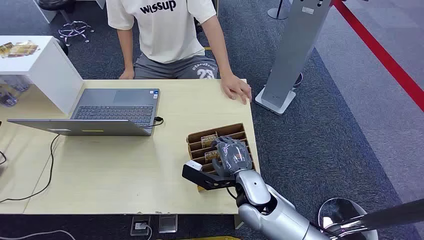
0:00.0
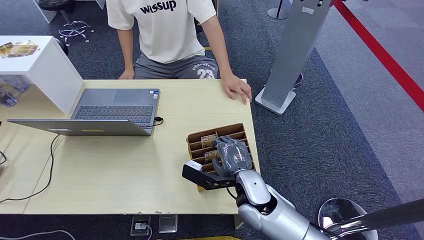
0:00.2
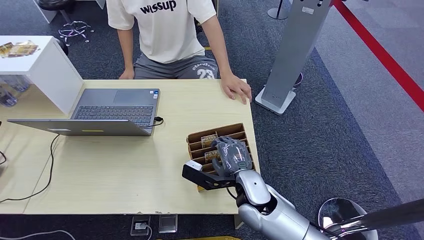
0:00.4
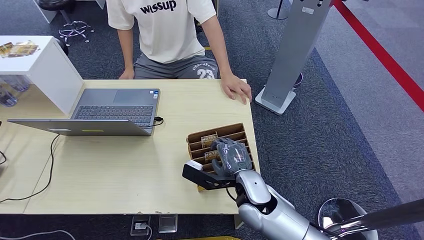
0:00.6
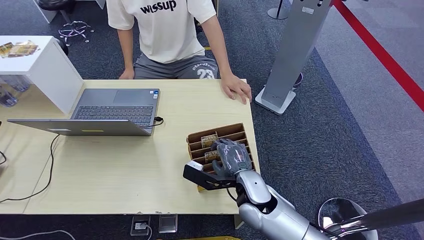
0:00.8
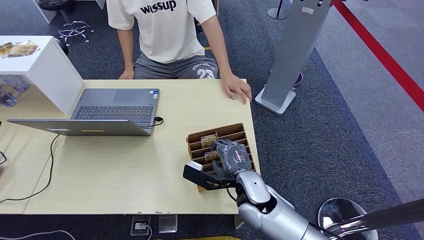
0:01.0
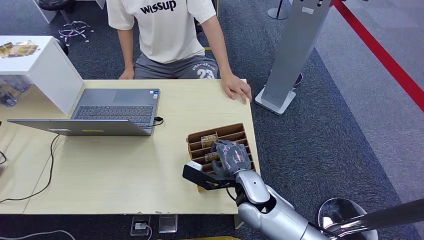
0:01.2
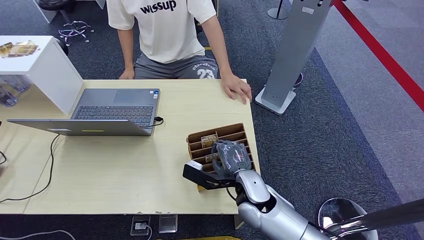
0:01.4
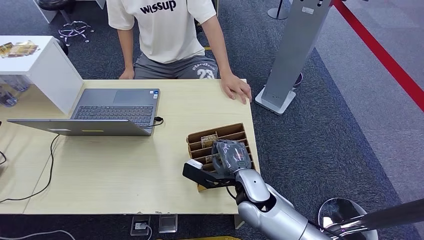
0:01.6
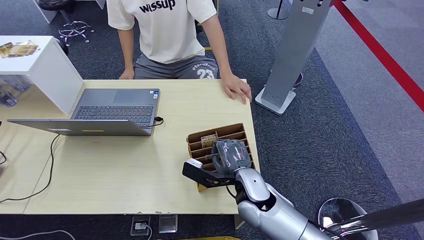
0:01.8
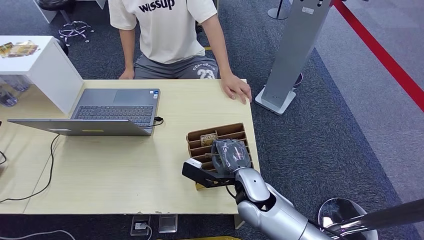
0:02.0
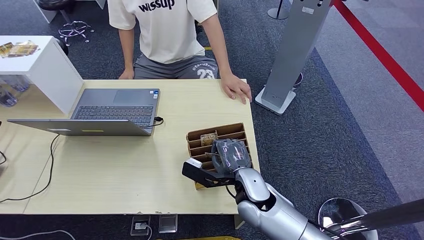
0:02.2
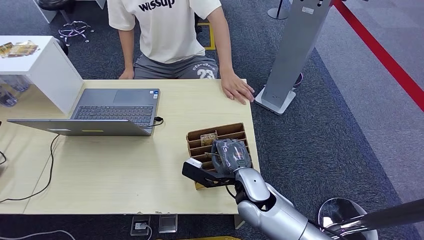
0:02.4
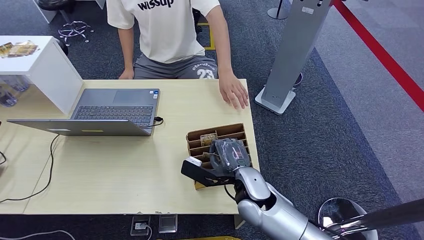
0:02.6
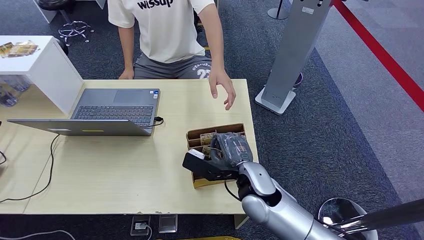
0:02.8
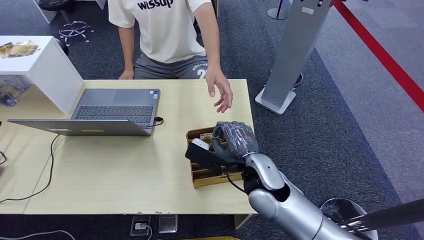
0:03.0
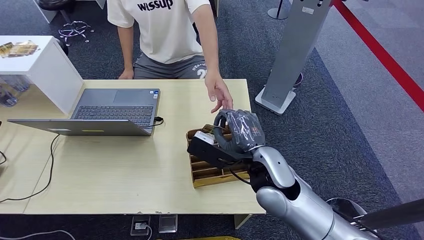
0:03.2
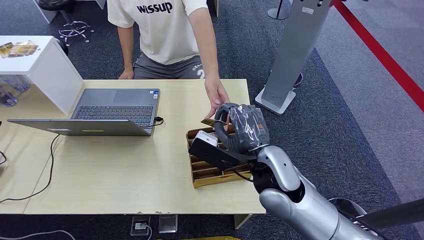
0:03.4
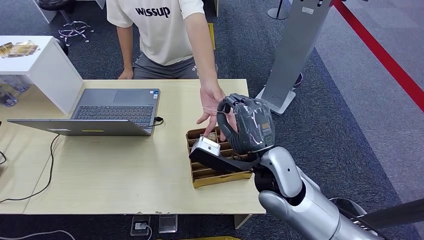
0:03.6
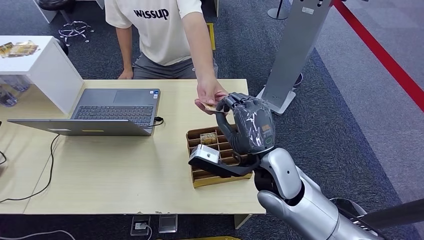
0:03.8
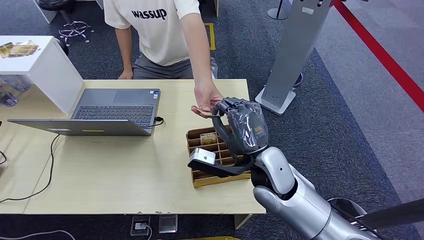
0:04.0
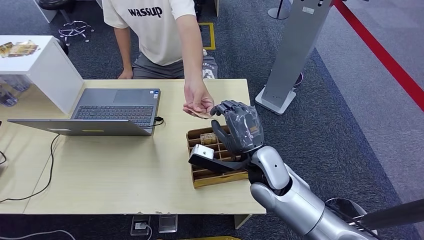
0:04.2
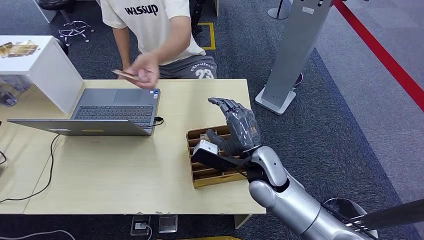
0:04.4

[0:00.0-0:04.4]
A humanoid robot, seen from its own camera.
Step, 0:00.0 to 0:03.6: Pick up the room card from the card holder.
Step, 0:03.8 to 0:04.4: Hand the room card to the target.
0:01.4 to 0:03.0: The right hand moves upward, about 5 cm.

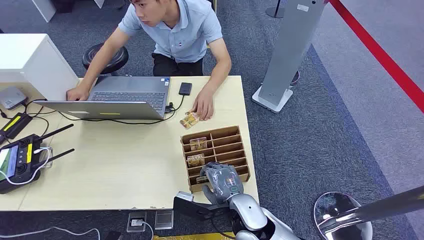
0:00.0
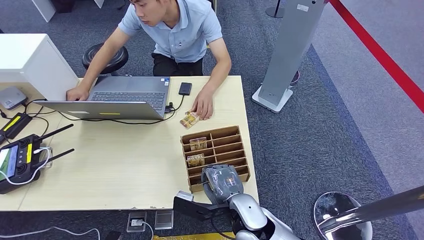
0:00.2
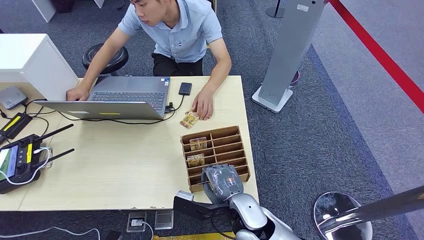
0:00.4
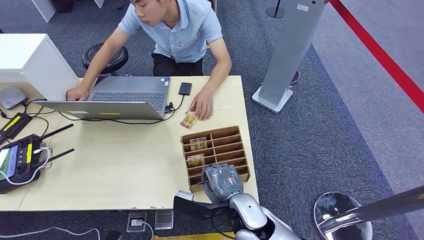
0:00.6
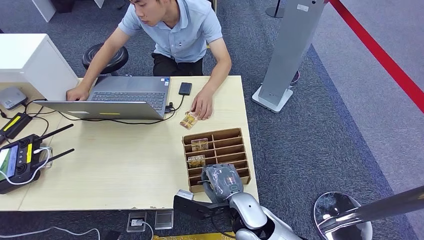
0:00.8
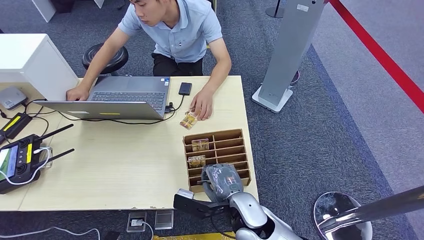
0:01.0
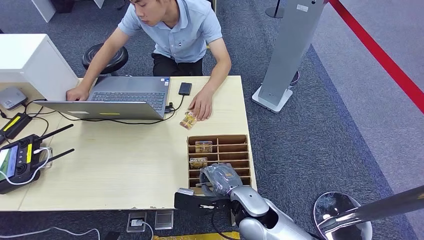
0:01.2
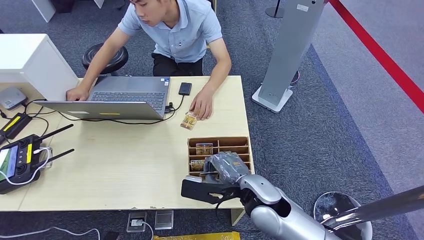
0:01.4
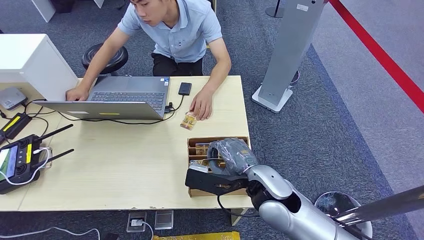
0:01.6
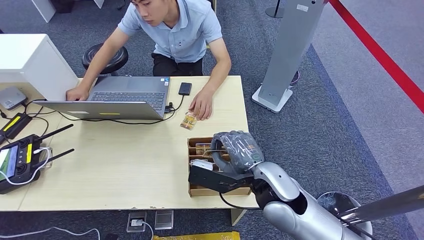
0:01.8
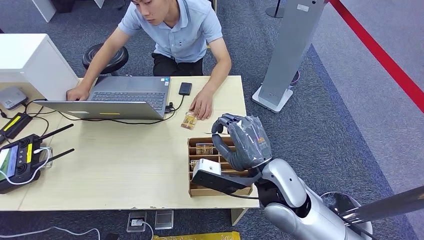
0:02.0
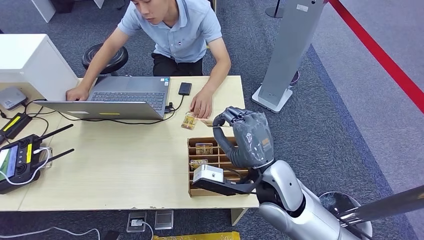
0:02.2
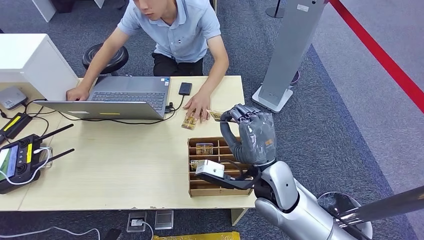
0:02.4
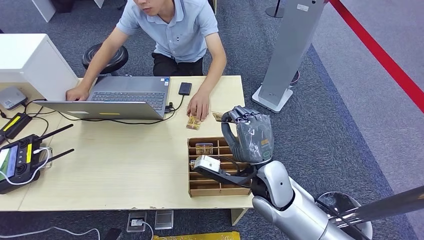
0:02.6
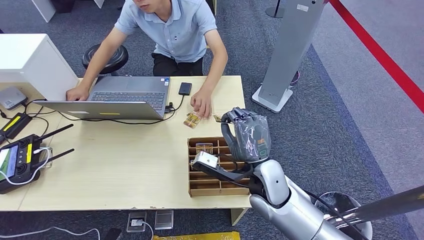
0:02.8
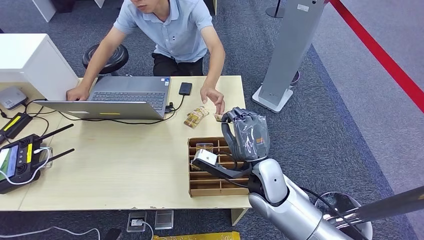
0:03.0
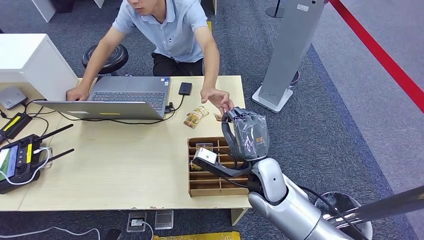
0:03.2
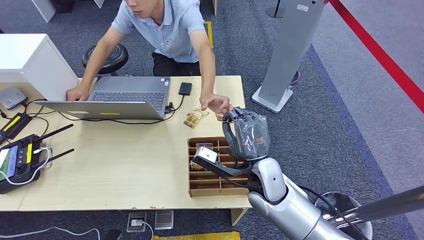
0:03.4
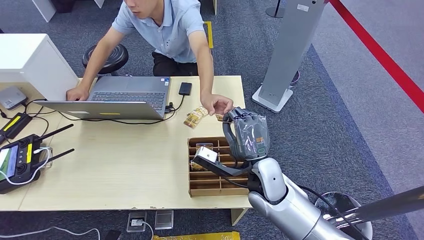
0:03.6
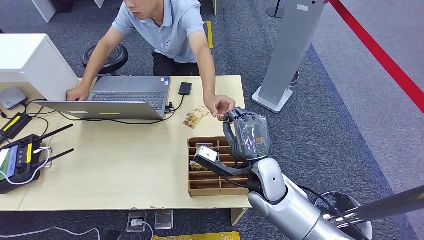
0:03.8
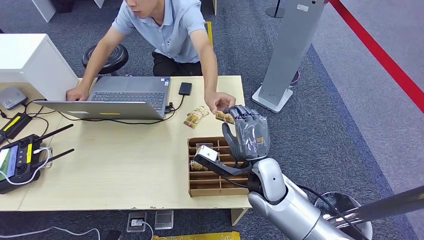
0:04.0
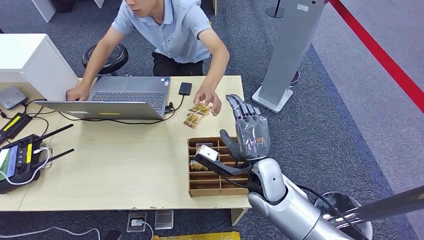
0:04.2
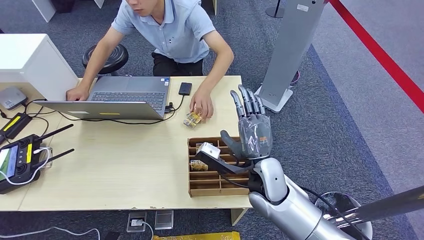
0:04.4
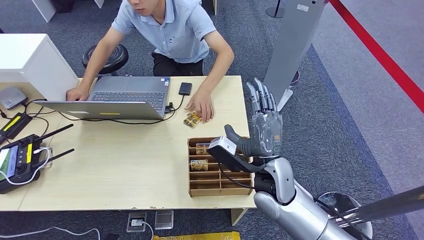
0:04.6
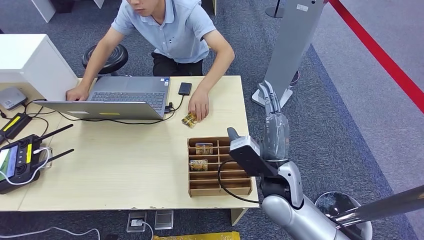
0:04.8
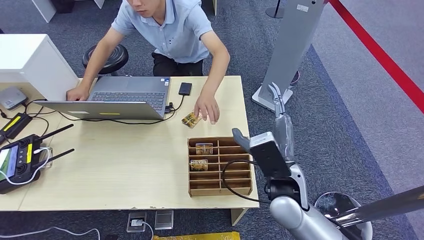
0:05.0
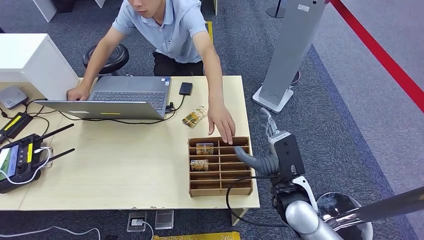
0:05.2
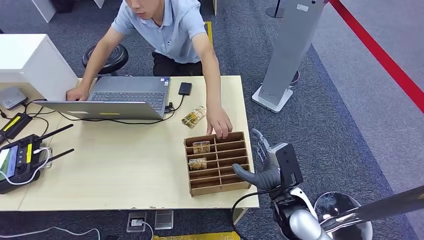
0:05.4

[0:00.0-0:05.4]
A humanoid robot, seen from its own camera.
Step, 0:00.0 to 0:02.0: Pick up the room card from the card holder.
Step, 0:02.4 to 0:05.2: Hand the room card to the target.
0:02.8 to 0:04.0: The hands make only small movements.
0:04.0 to 0:05.4: The right hand shifts about 10 cm to the right and backward.
